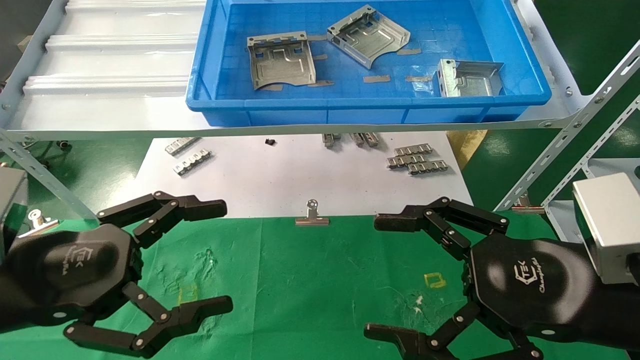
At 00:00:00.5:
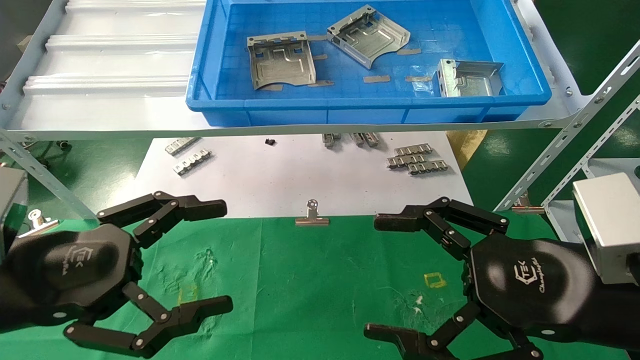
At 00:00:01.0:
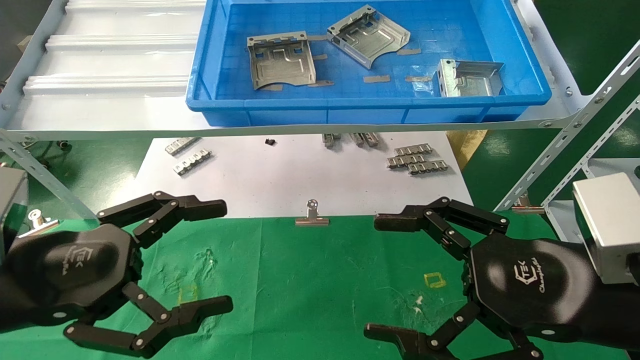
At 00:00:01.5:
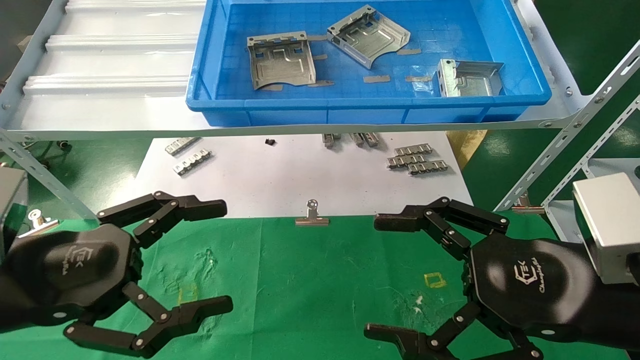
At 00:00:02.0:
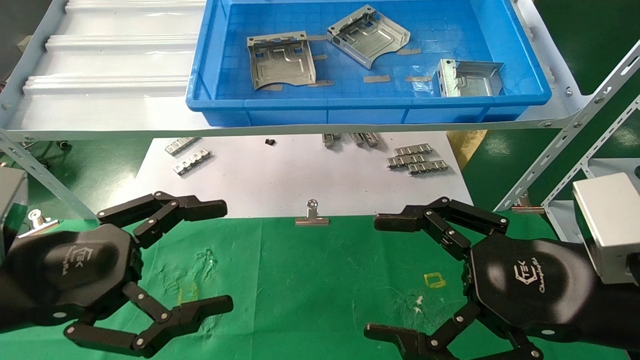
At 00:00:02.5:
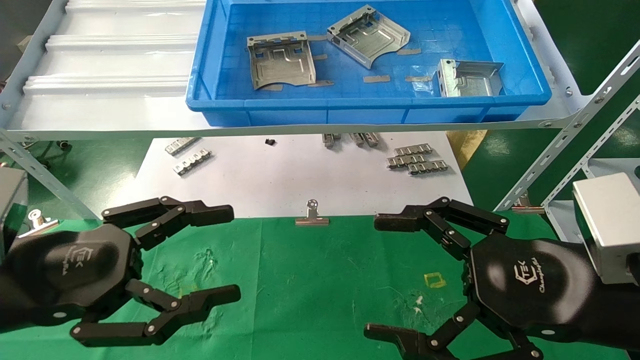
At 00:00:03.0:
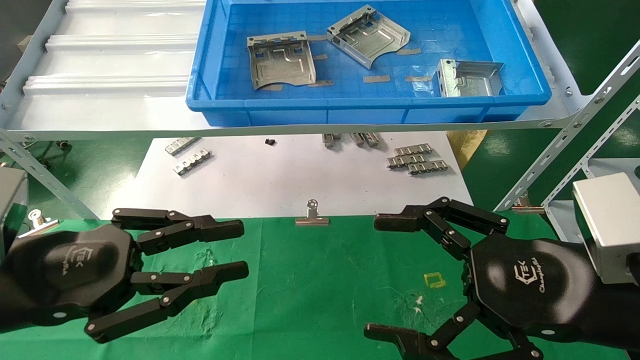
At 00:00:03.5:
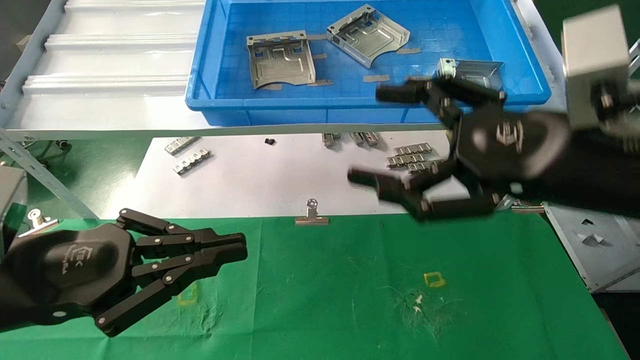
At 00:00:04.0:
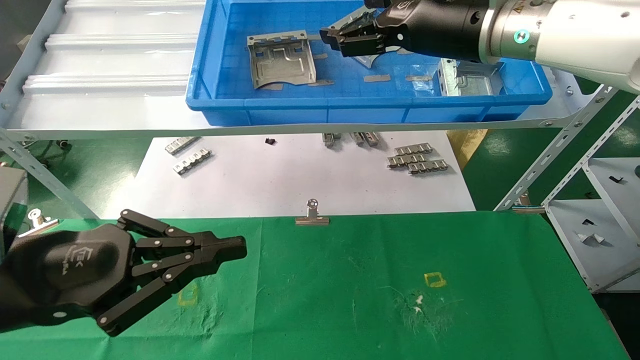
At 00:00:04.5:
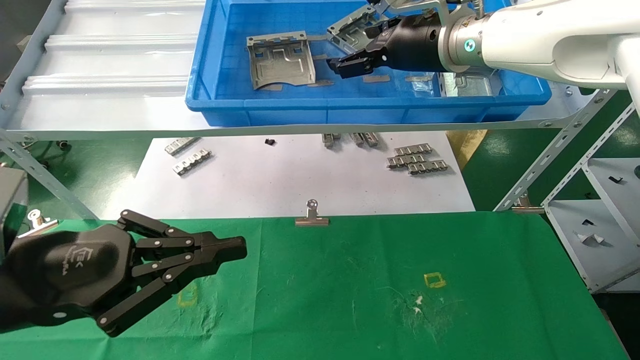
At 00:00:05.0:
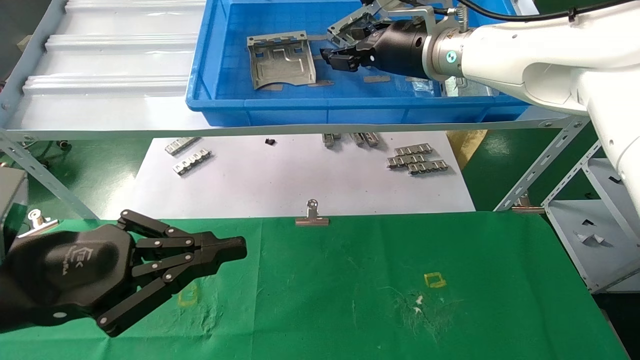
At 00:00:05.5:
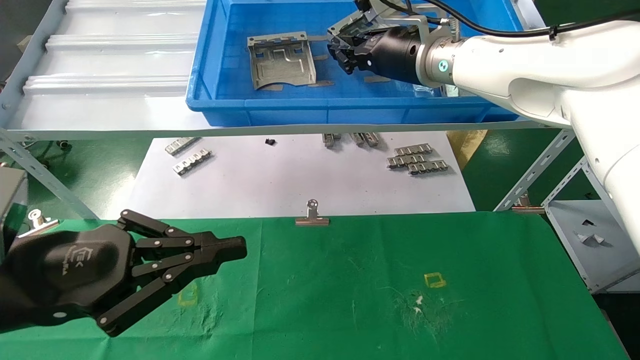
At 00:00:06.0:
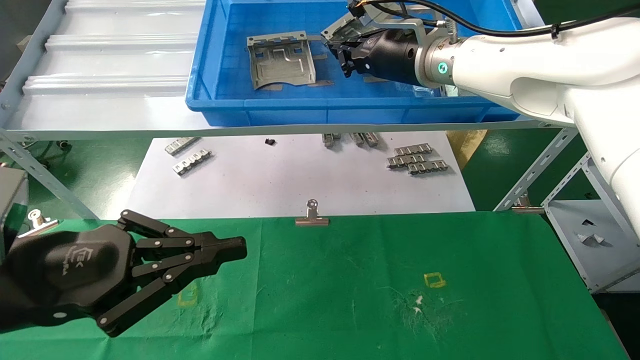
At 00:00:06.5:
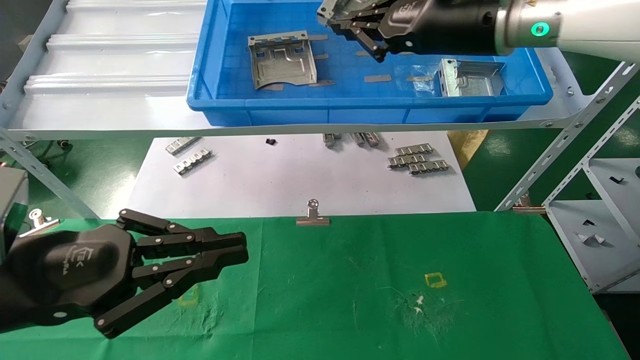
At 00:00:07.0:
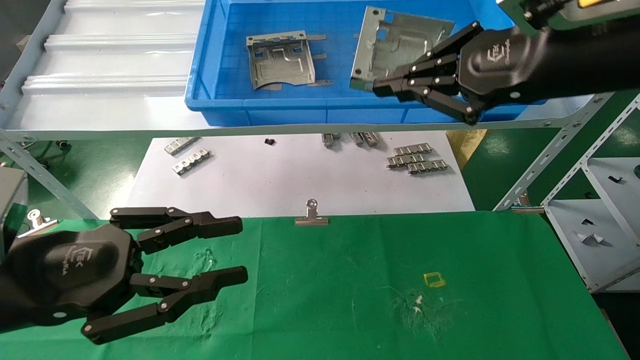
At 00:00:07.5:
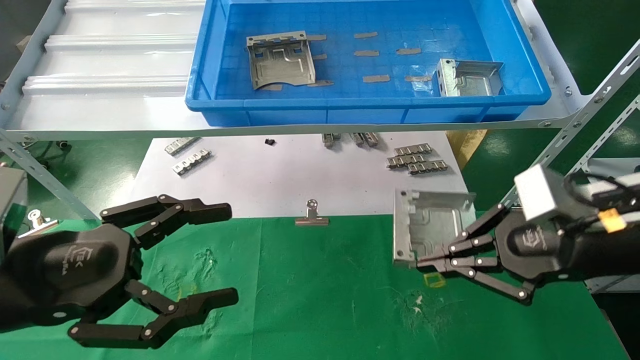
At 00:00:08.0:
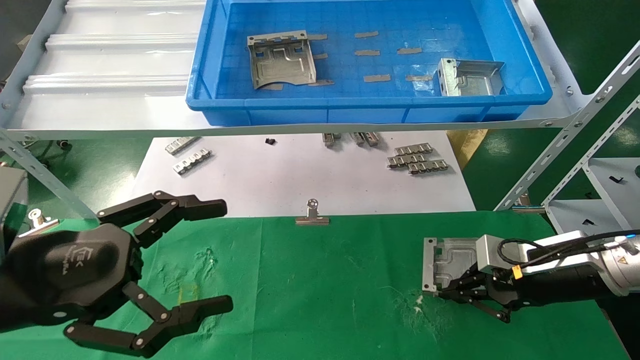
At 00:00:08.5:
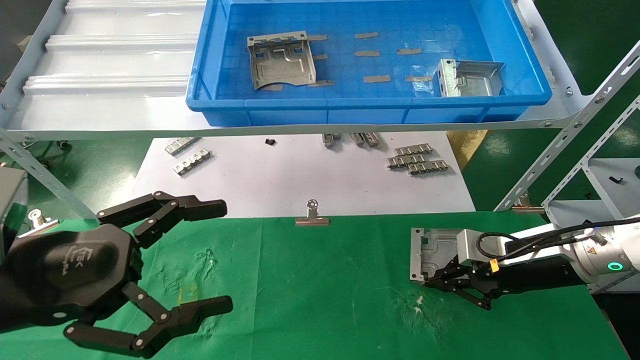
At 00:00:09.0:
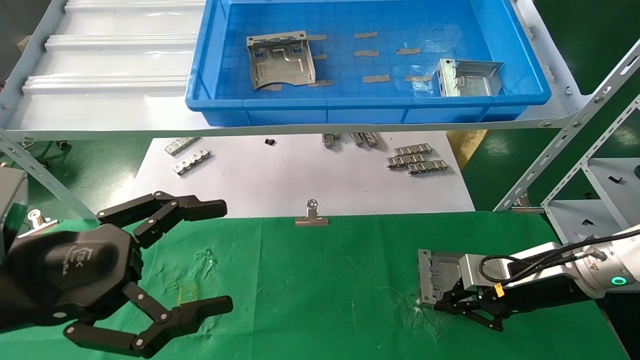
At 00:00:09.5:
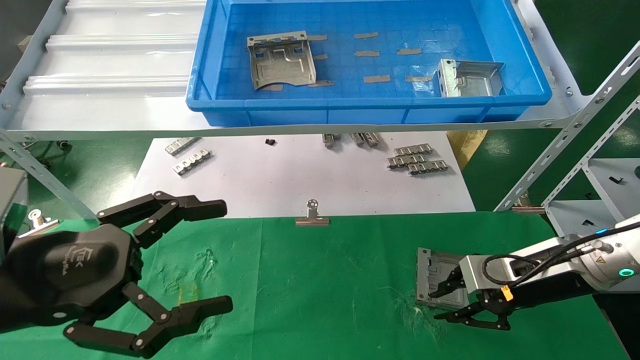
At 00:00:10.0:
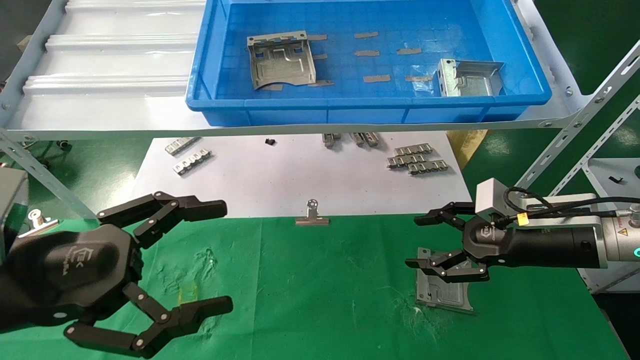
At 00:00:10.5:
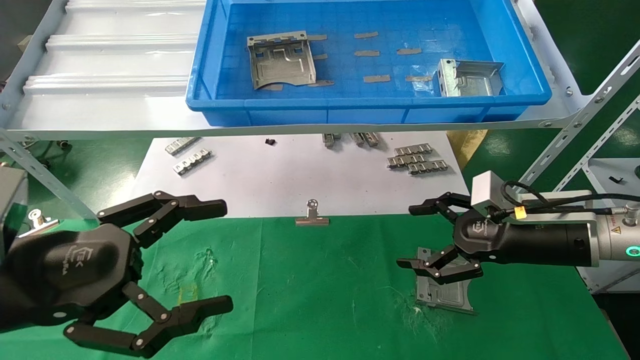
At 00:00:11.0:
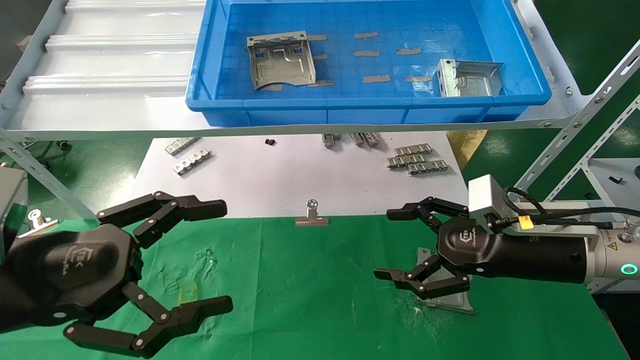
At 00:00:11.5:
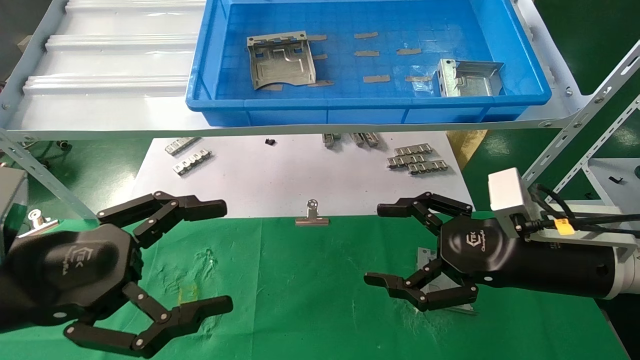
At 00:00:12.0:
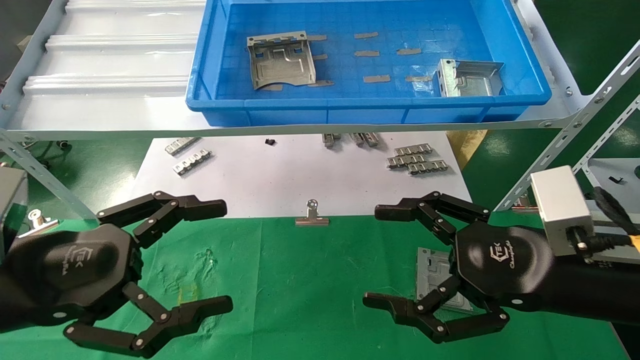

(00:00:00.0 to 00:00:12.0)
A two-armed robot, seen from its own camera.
Task of the whole recording: use the mechanical arm to pick up the parts and place them on the table.
Step, 00:00:03.5 - 00:00:06.0: Pick up the hard drive bracket from the feeding area.
Step, 00:00:06.5 - 00:00:09.0: Place the hard drive bracket into the box.
00:00:00.0 - 00:00:02.0: Neither gripper changes place.
00:00:02.0 - 00:00:04.0: The right gripper moves forward and upward, some 25 cm; the left gripper closes.
00:00:04.0 - 00:00:06.0: The right gripper is displaced forward by roughly 5 cm, and closes its fingers.
00:00:06.0 - 00:00:08.0: The right gripper travels downward and to the right by about 30 cm. Meanwhile the left gripper opens.
00:00:08.0 - 00:00:10.0: The right gripper opens up.
00:00:10.0 - 00:00:12.0: The right gripper shifts roughly 15 cm backward and to the left, and opens up.

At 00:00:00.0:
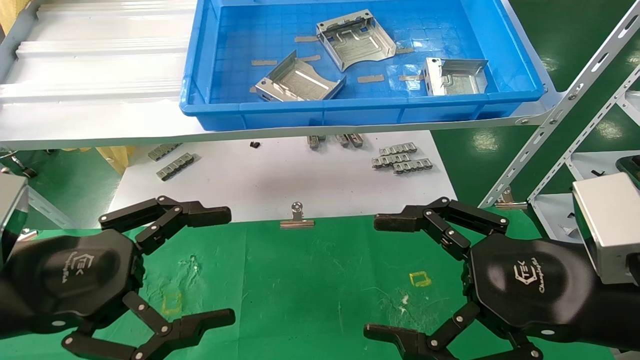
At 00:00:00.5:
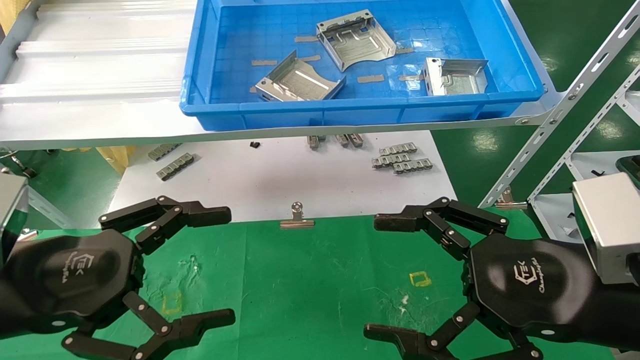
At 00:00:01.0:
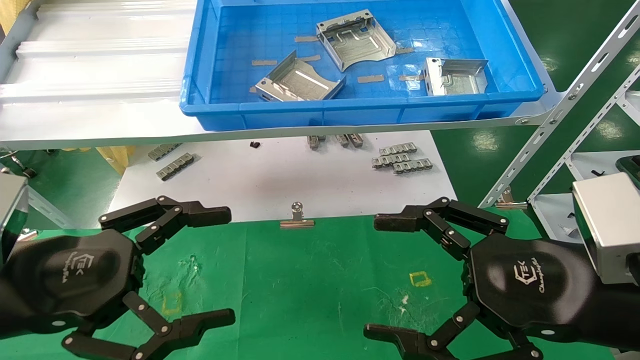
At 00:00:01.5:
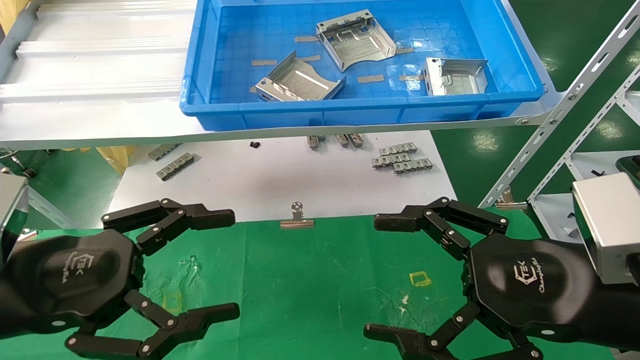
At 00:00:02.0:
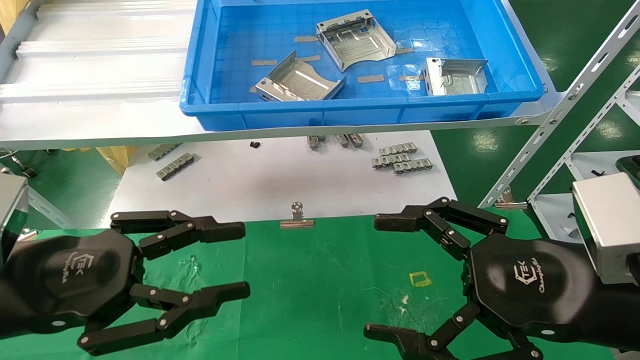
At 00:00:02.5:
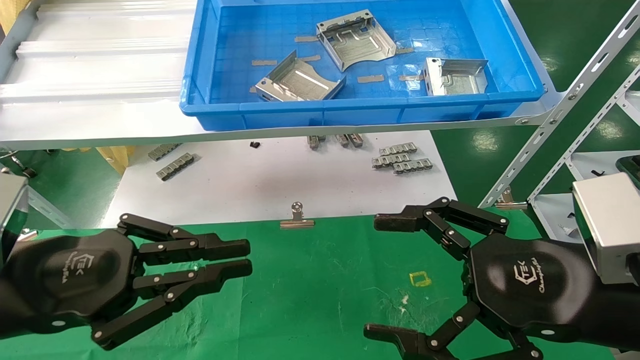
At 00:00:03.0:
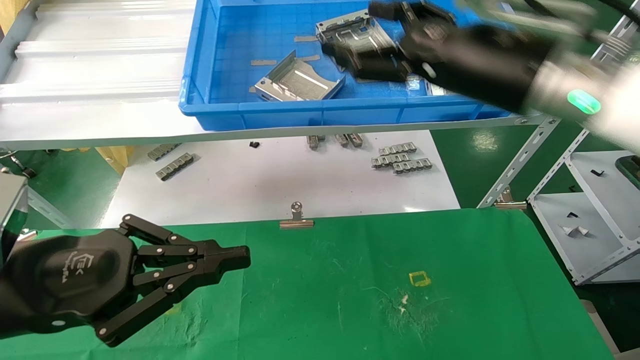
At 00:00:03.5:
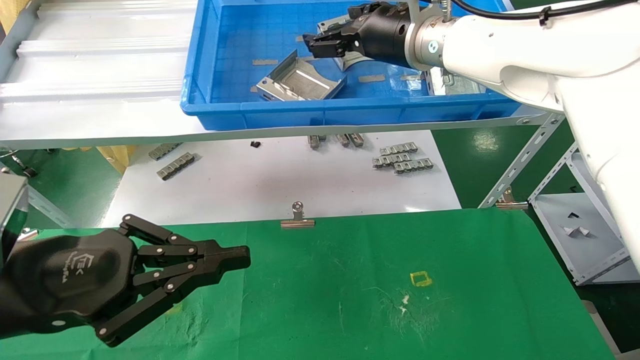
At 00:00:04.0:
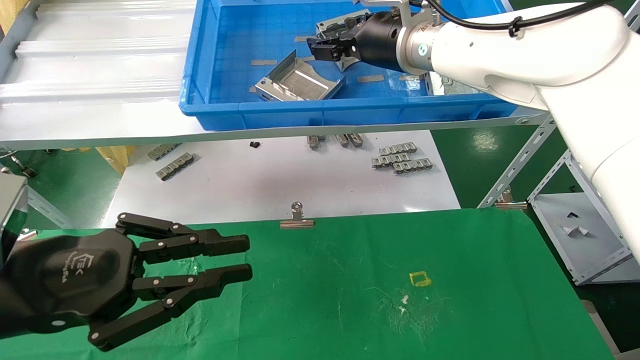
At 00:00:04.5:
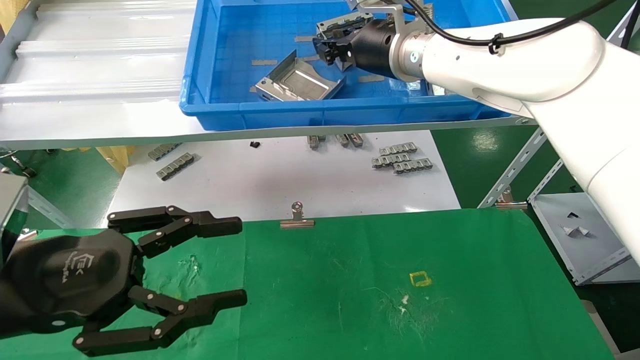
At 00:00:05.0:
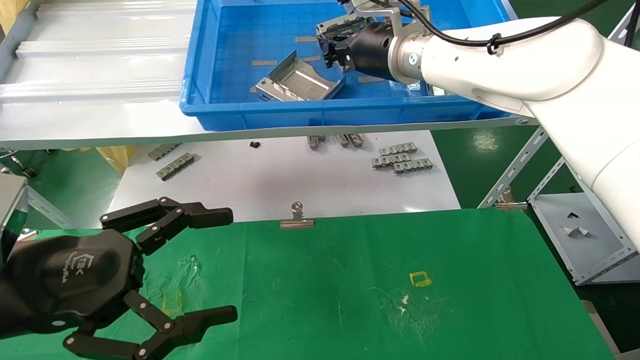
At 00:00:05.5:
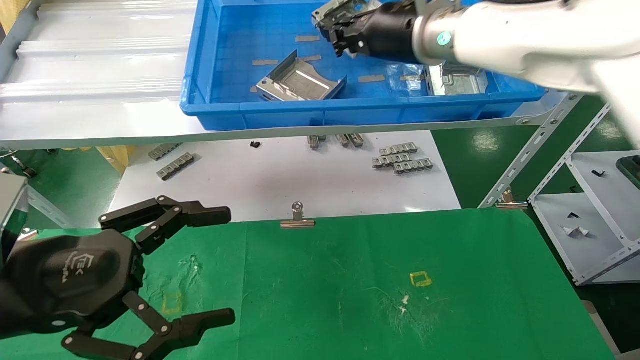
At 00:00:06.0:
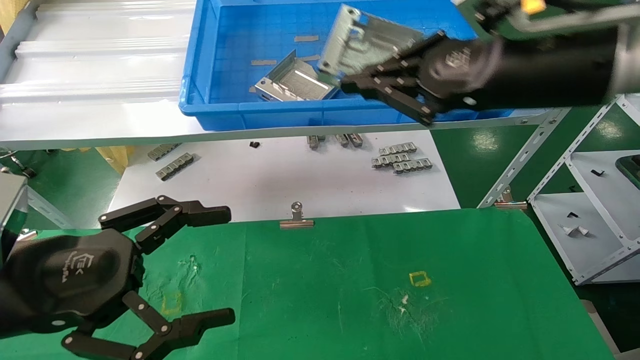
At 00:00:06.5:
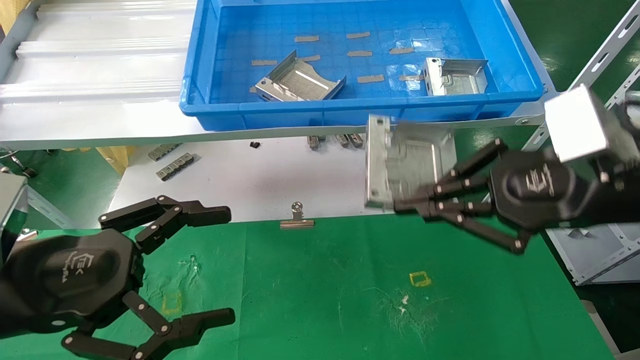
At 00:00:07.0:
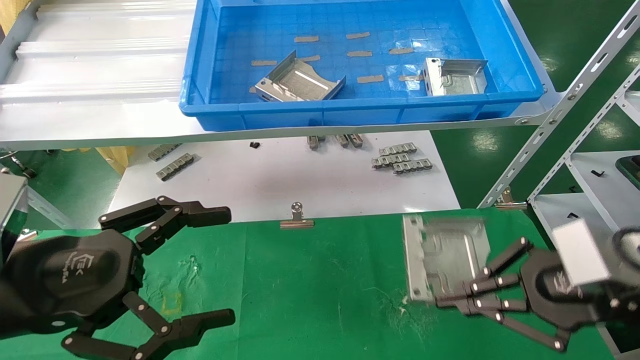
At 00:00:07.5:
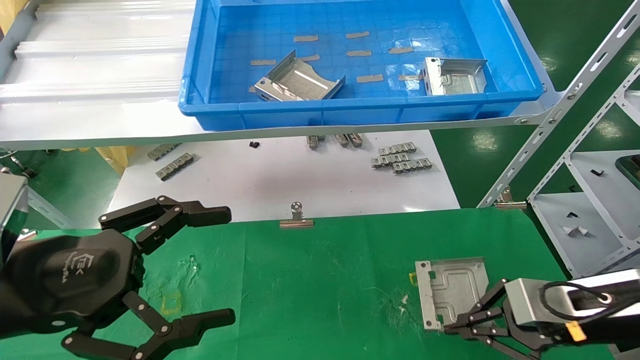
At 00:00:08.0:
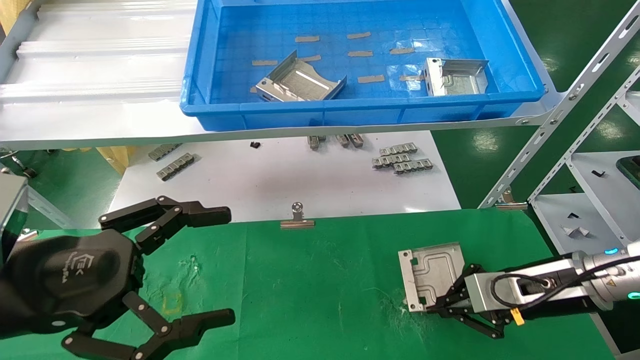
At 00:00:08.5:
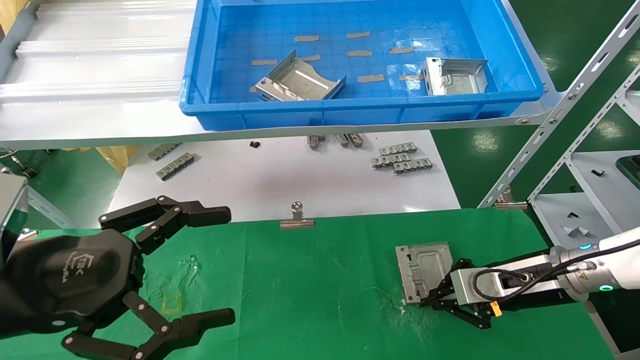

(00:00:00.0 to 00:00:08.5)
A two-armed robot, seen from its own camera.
Task of the whole recording: use the mechanical arm to pick up the parts and place them on the table.
Step, 00:00:02.0 - 00:00:04.0: Pick up the hard drive bracket from the feeding area.
00:00:00.0 - 00:00:02.0: The left gripper closes.
00:00:02.0 - 00:00:04.0: The left gripper closes up; the right gripper goes about 35 cm forward, upward and to the left.
00:00:04.0 - 00:00:06.5: The left gripper opens up, while the right gripper shifts some 30 cm backward, to the right and downward, and closes up.
00:00:06.5 - 00:00:08.5: The right gripper moves downward and forward, about 25 cm.
